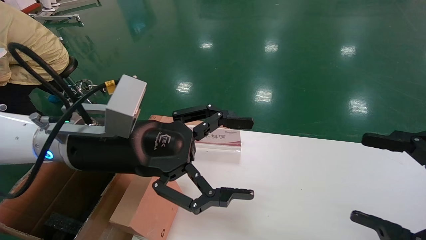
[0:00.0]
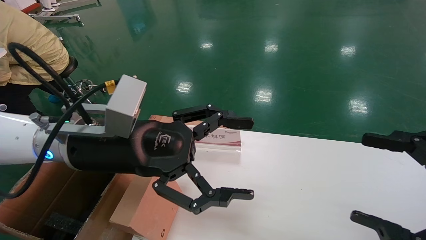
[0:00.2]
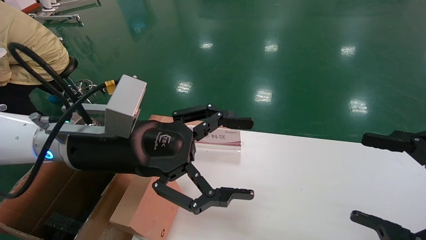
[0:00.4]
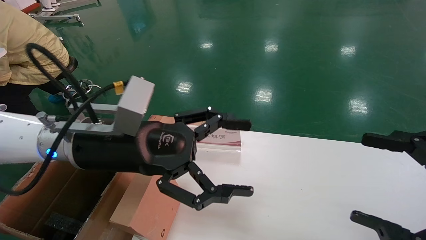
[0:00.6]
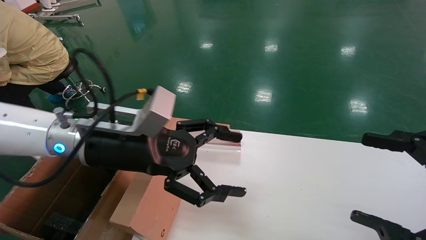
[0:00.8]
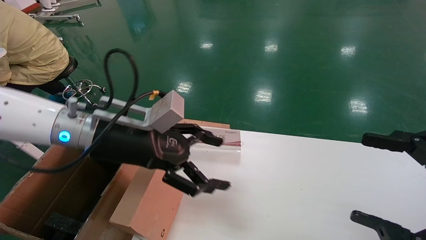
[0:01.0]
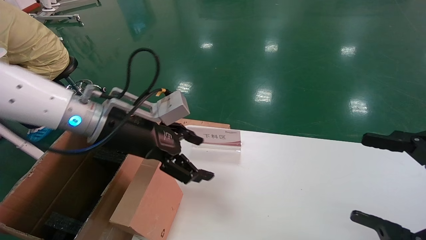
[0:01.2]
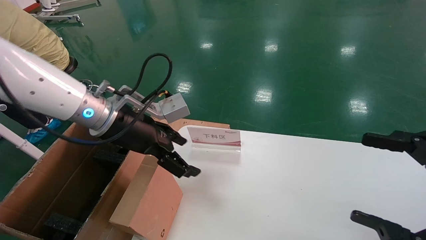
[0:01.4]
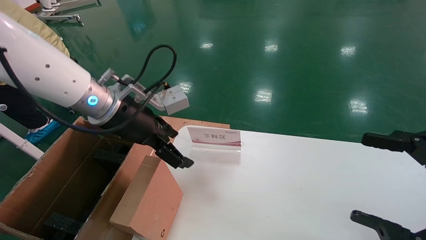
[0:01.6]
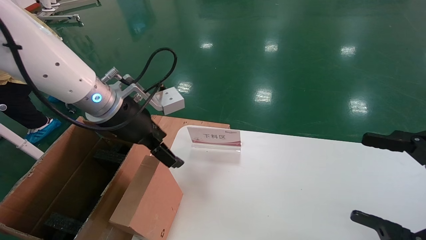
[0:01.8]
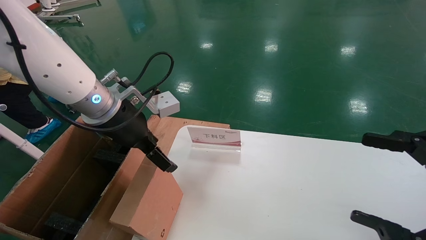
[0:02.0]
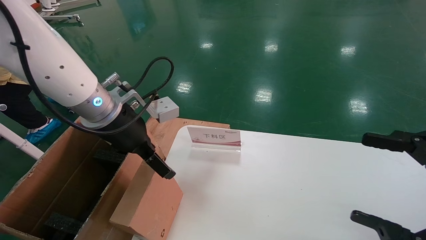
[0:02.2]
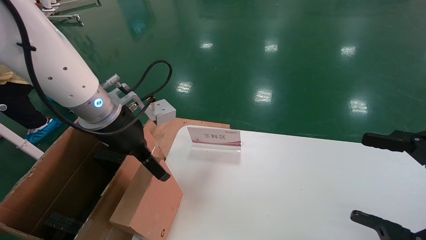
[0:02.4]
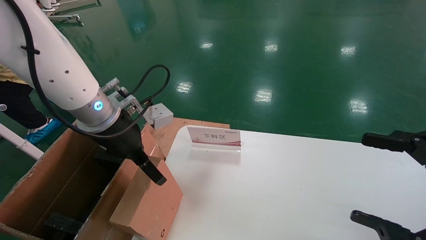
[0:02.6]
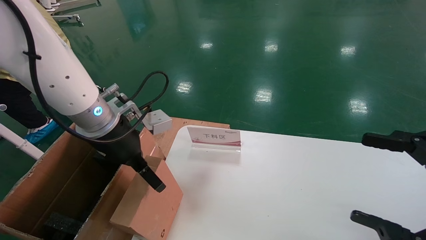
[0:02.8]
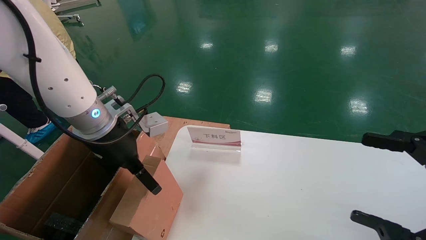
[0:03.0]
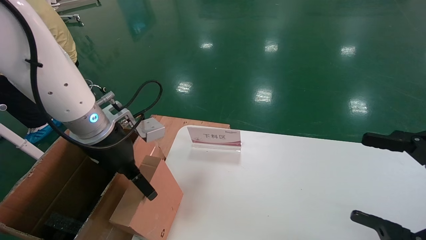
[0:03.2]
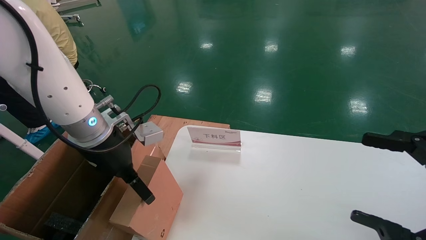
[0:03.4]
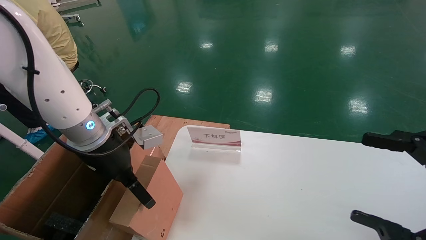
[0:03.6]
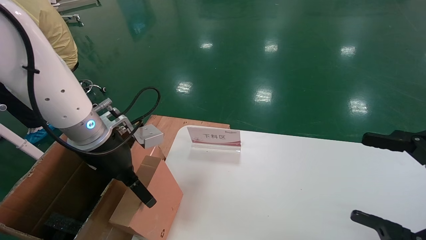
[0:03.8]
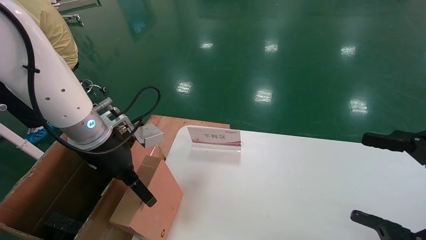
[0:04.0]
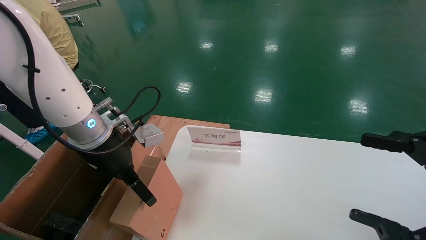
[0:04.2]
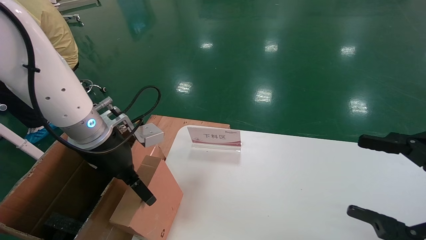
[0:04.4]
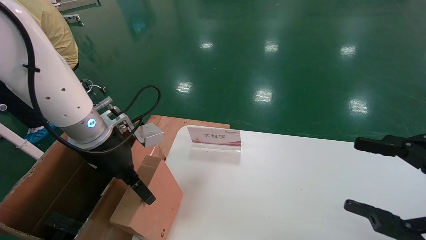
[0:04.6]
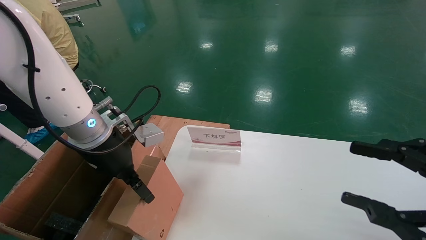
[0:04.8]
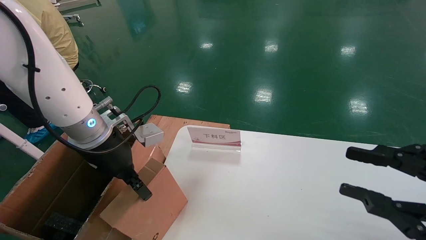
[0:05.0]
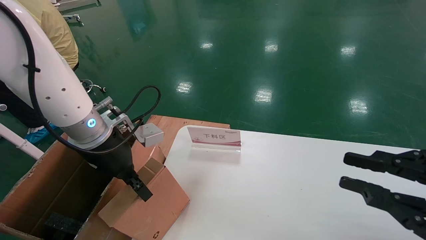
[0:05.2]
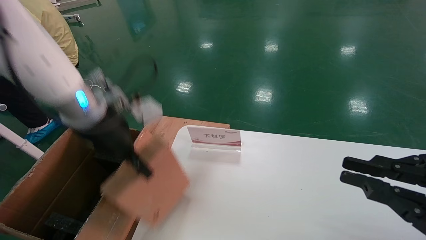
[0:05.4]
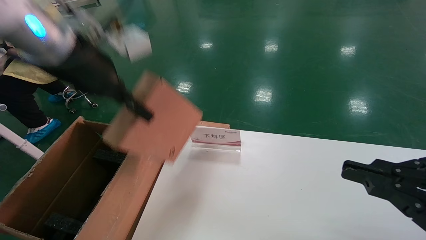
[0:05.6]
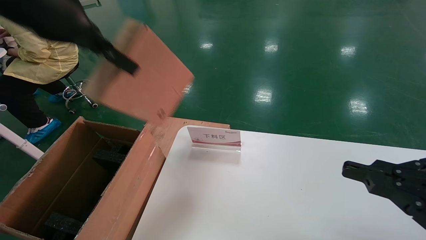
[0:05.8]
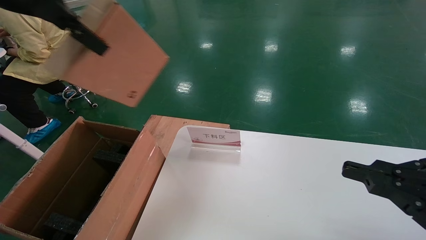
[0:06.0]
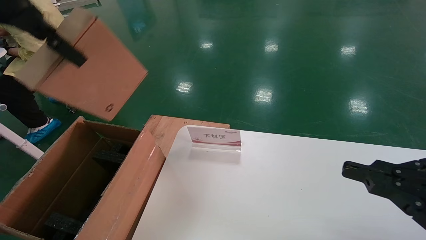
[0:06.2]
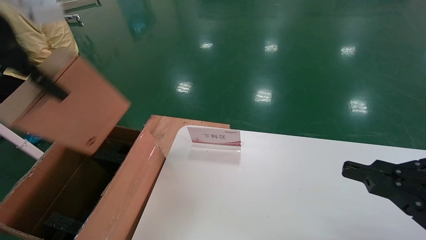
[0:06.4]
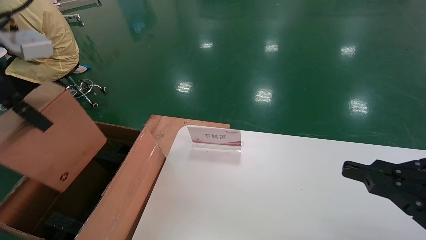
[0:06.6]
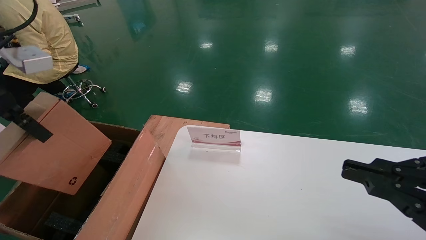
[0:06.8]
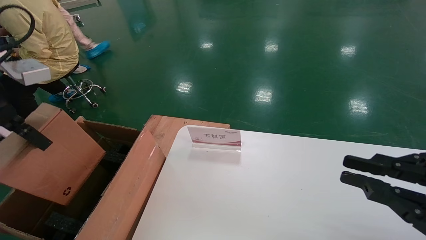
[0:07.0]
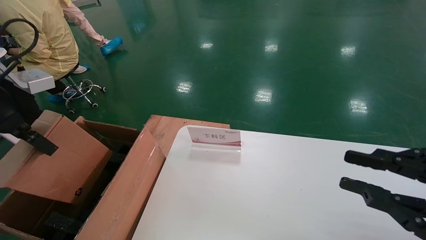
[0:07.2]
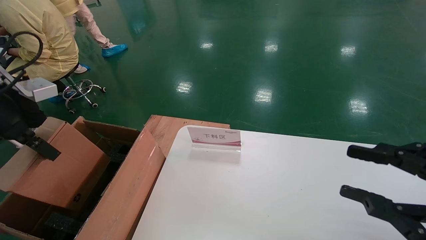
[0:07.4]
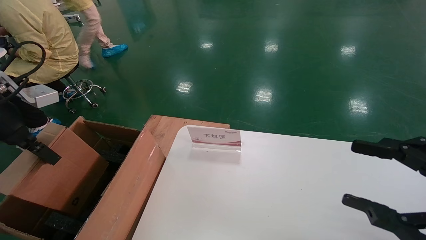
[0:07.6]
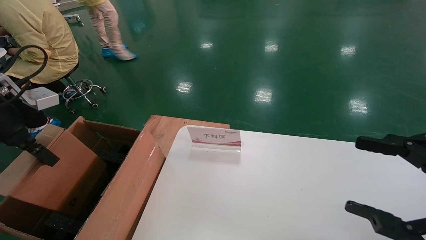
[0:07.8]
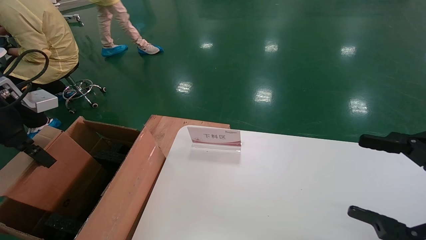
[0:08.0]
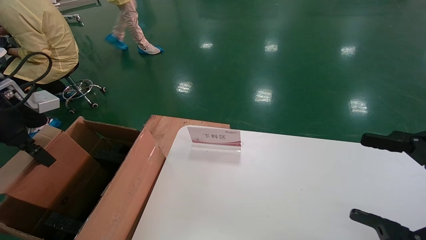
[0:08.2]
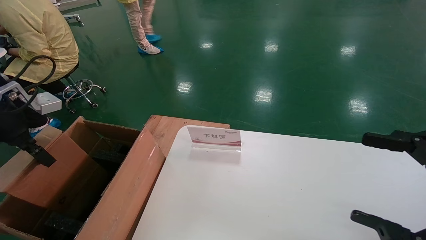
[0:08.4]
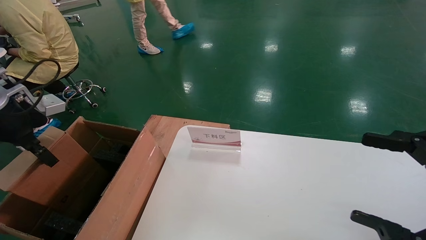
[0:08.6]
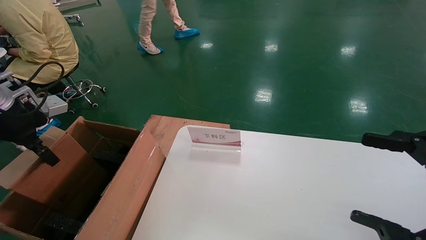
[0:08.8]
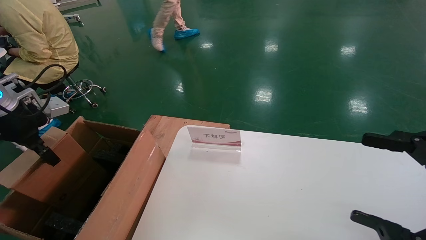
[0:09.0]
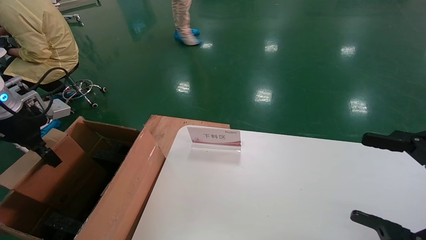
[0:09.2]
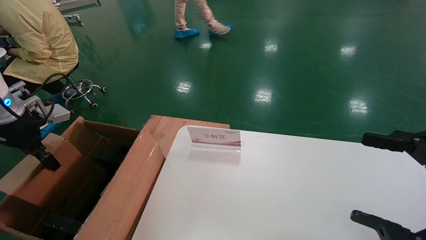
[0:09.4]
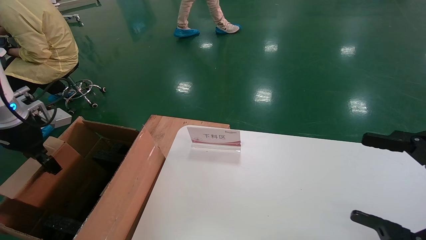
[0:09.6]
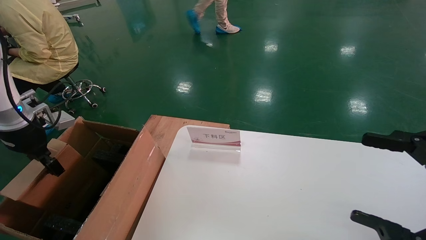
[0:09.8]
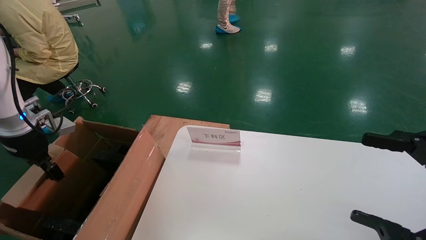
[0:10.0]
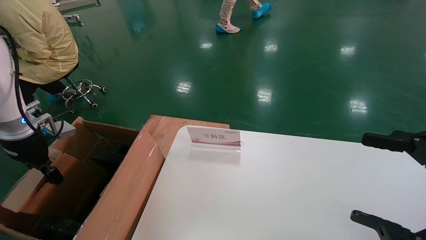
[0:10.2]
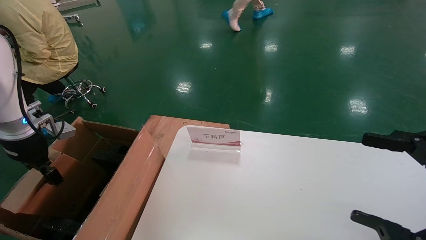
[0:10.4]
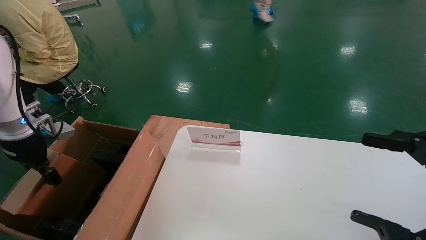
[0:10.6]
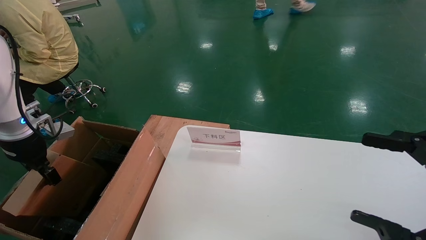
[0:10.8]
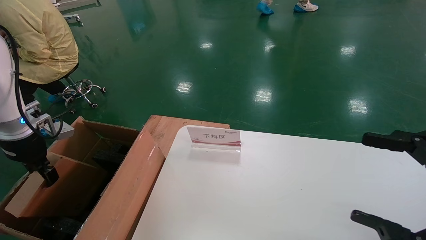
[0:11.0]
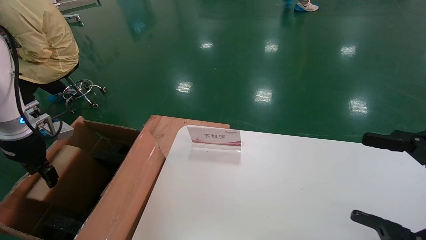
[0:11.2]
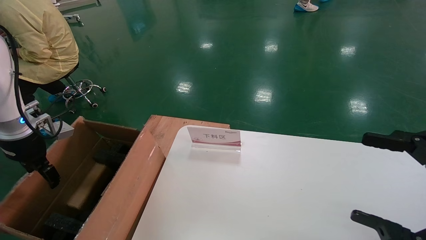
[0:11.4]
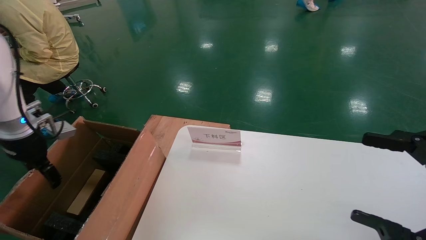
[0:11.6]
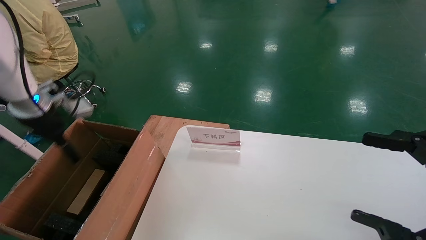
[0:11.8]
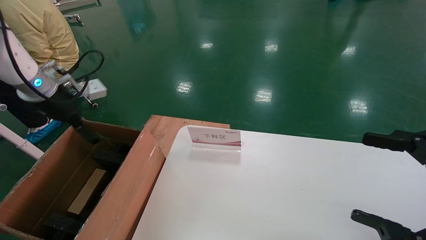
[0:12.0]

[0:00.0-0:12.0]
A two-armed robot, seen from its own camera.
Task of the whole recording: pick up the small cardboard box and load it into the large cardboard box.
Step, 0:01.0 to 0:05.0: Pick up the mouse and power cord box.
Step, 0:05.2 to 0:11.4: Place the mouse and power cord box into the case.
0:00.0 to 0:01.6: The left gripper moves forward, about 10 cm.
0:03.0 to 0:04.4: The grippers make only small movements.
0:04.4 to 0:06.0: The right gripper closes. Meanwhile the left gripper shifts some 25 cm upward, and closes.
0:06.0 to 0:07.6: The right gripper opens; the left gripper goes approximately 20 cm downward and to the left.
0:07.6 to 0:09.0: The right gripper opens up, while the left gripper moves forward, approximately 5 cm.
0:09.0 to 0:10.4: The left gripper travels downward by some 5 cm.
0:10.4 to 0:12.0: The left gripper travels upward and to the right by approximately 10 cm, and opens up.

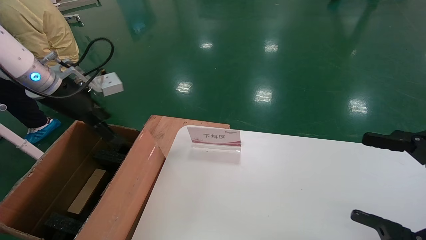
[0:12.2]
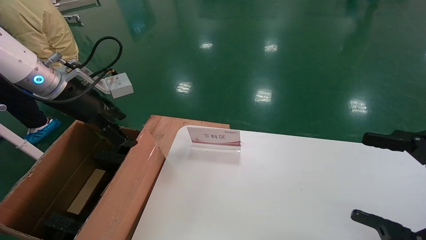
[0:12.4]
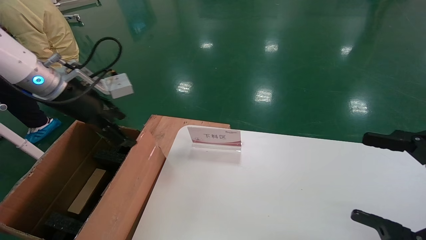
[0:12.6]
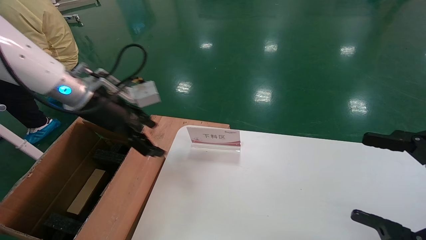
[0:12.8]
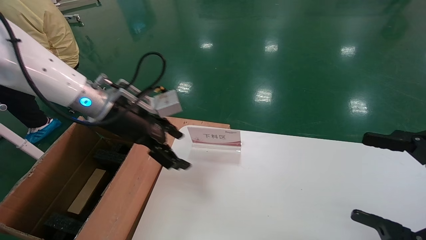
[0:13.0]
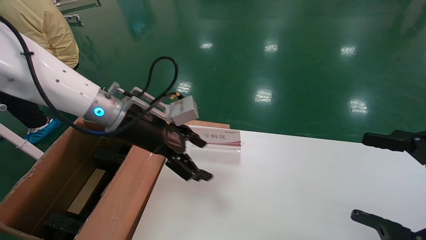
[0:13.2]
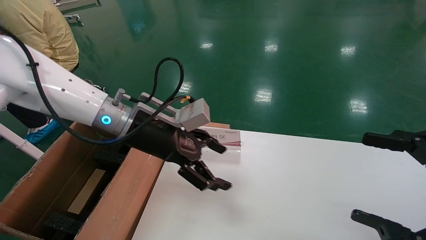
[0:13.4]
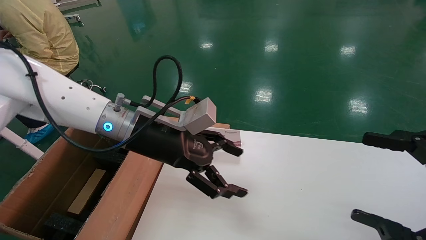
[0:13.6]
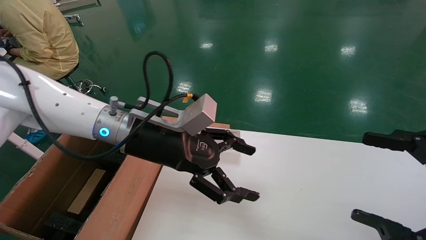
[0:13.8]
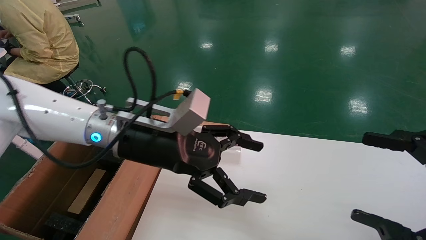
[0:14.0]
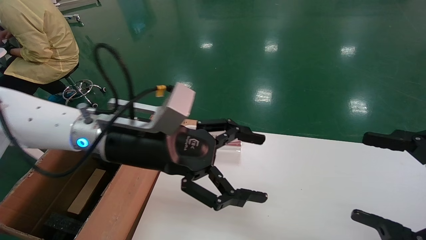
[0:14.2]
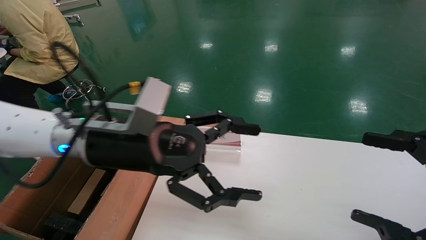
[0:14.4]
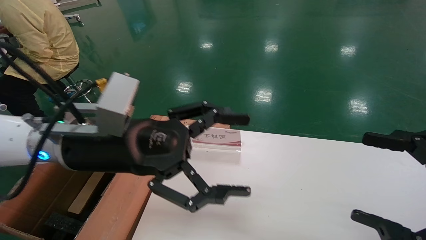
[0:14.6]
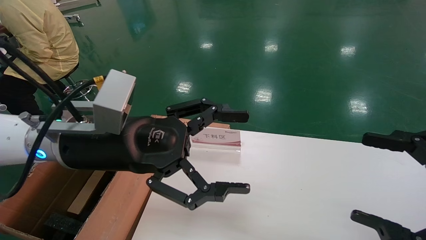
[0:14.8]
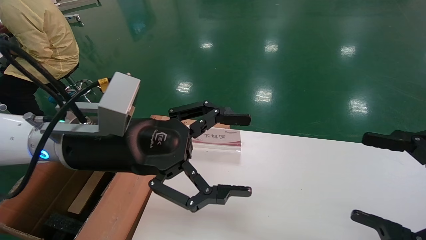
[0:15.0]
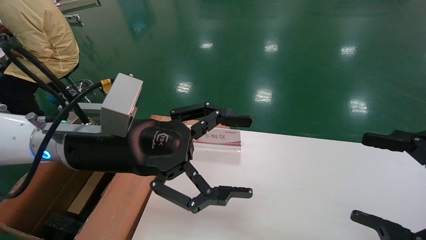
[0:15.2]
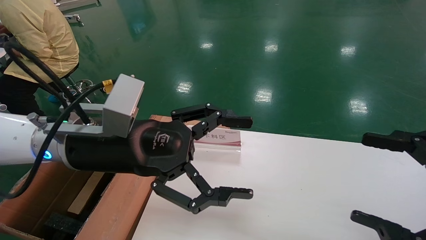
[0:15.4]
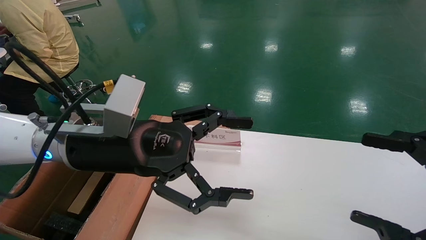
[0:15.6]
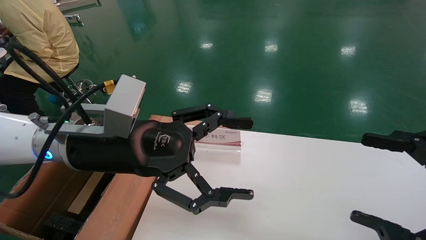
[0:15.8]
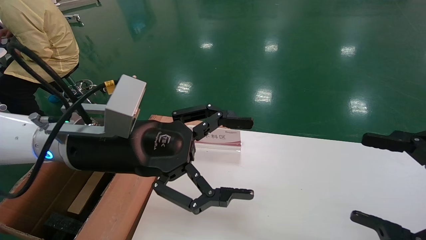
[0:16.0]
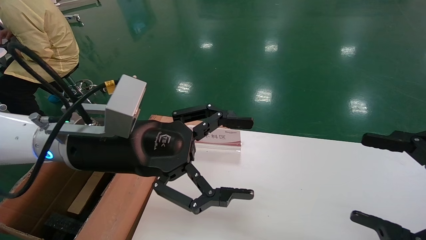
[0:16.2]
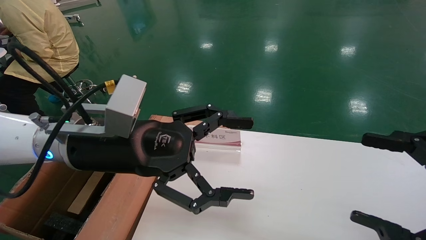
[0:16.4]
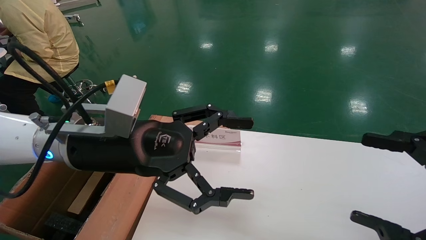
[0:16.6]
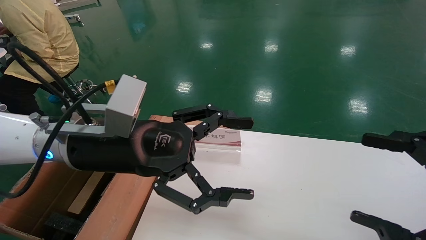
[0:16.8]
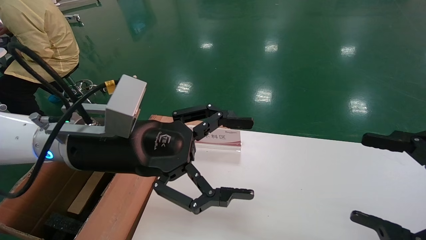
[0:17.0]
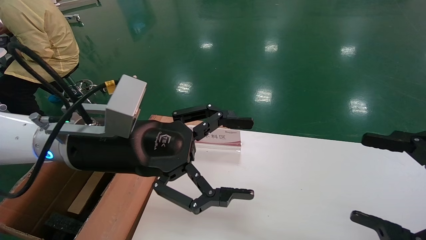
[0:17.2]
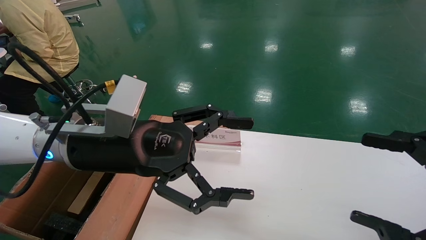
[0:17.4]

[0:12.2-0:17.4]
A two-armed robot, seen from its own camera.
Task of the whole recording: pick up the small cardboard box and load it into the large cardboard box.
0:12.2 to 0:14.0: The left gripper is displaced to the right by roughly 20 cm.
0:14.0 to 0:15.6: The left gripper goes some 5 cm backward.
0:15.6 to 0:17.4: Neither gripper changes place.
